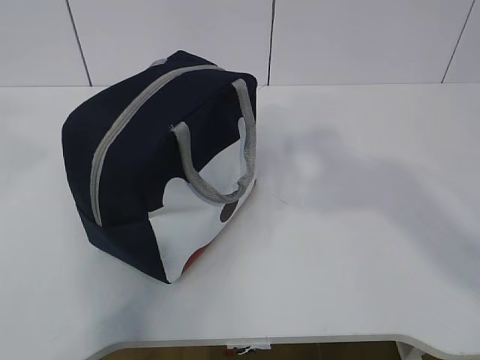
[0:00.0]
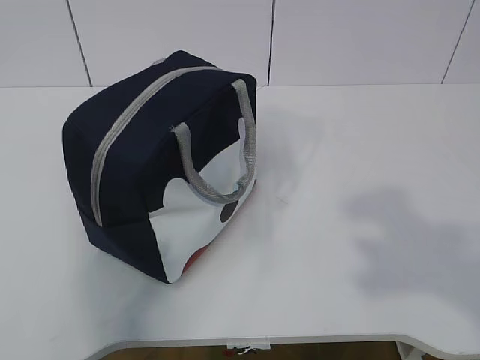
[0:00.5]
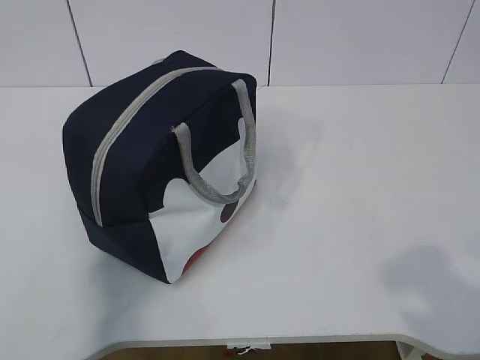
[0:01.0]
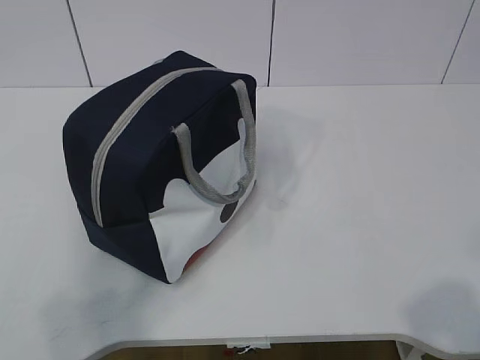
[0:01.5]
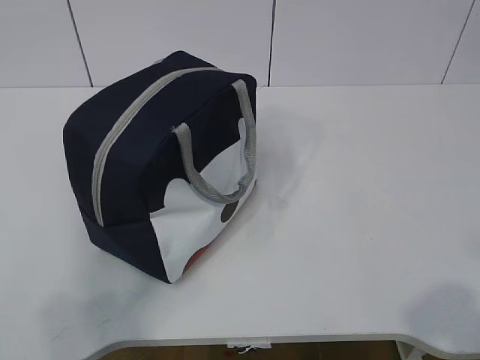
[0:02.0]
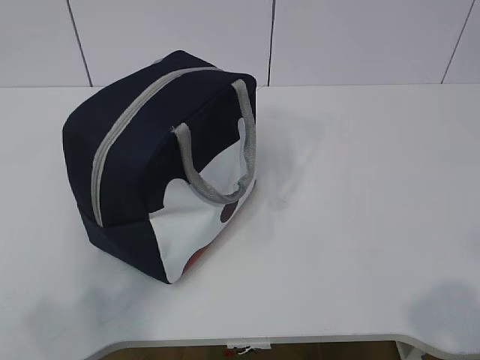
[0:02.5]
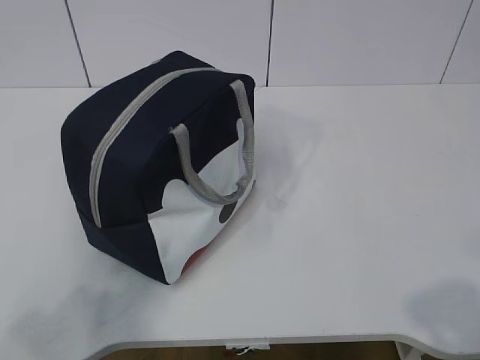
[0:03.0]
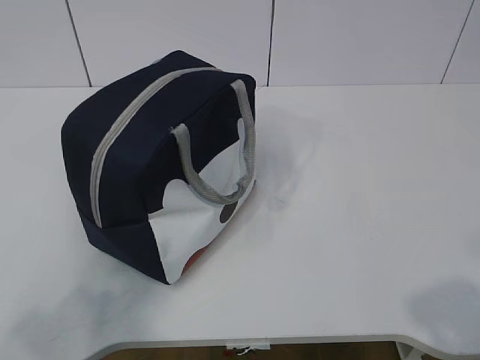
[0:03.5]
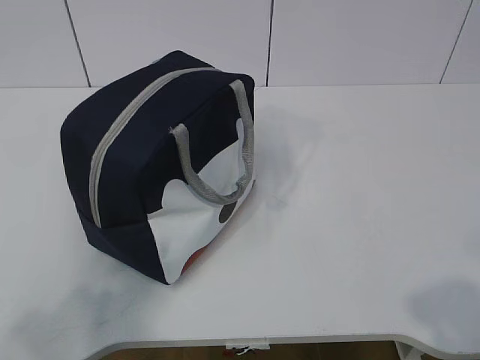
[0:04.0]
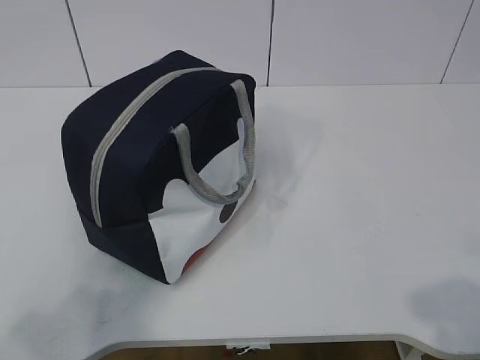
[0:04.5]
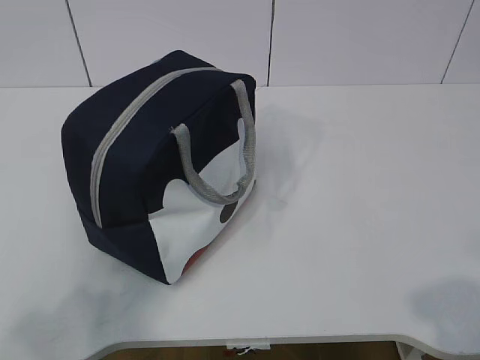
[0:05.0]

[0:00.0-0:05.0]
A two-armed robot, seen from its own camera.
0:00.0 to 0:02.5: The right gripper shifts roughly 20 cm downward and backward; the left gripper heads downward, backward and to the left, covering roughly 25 cm.

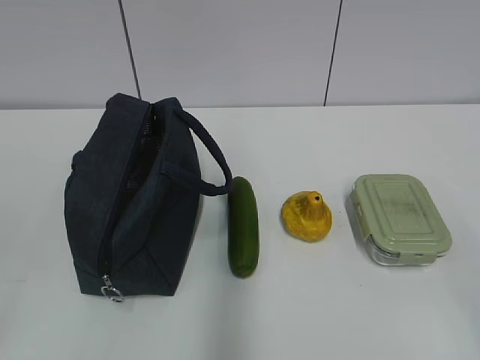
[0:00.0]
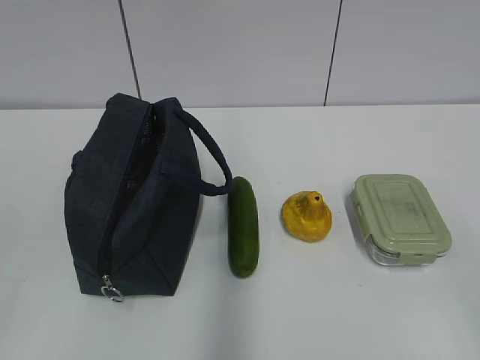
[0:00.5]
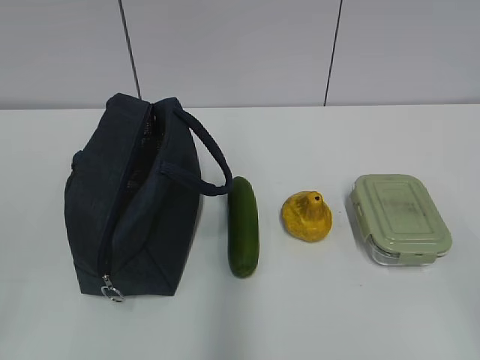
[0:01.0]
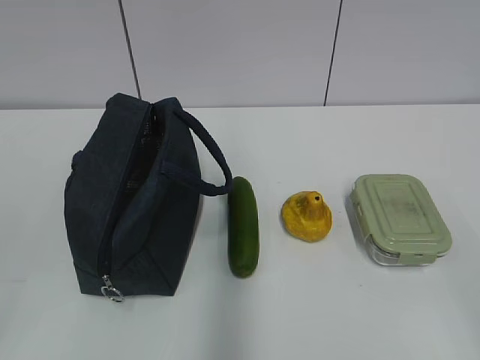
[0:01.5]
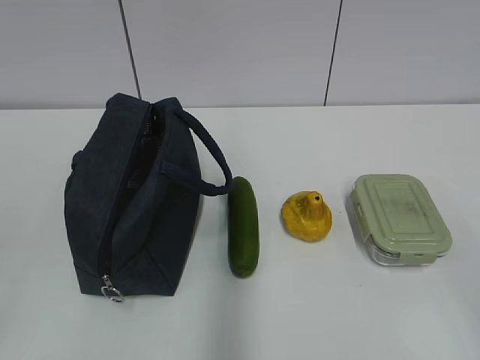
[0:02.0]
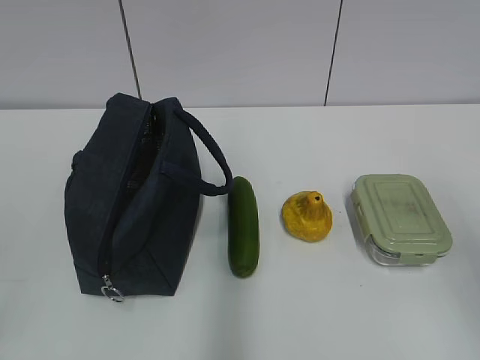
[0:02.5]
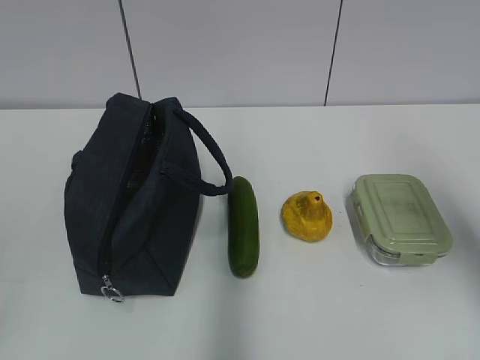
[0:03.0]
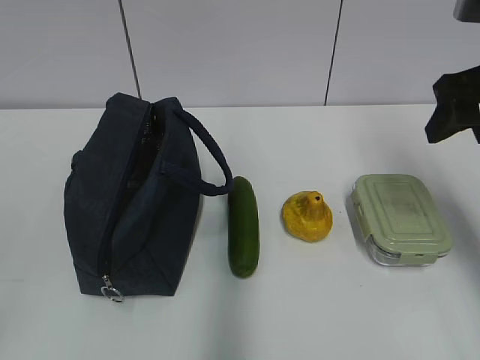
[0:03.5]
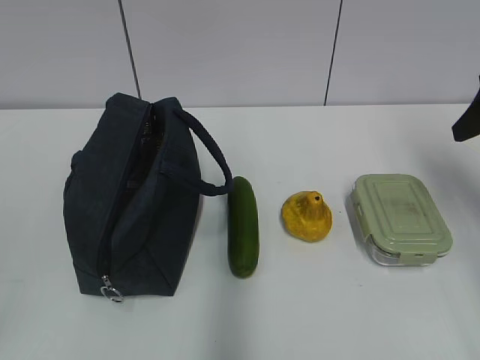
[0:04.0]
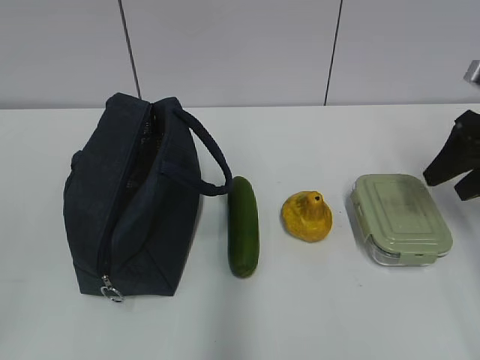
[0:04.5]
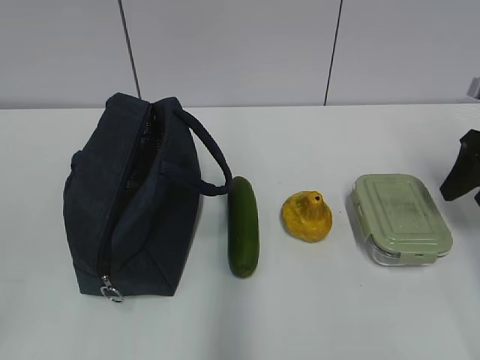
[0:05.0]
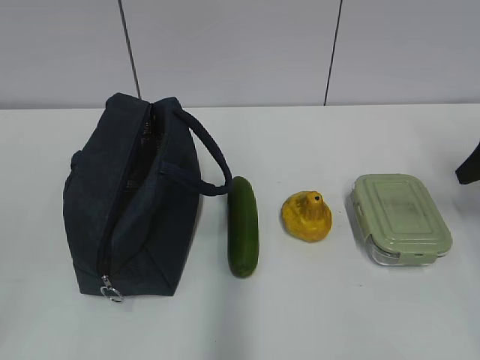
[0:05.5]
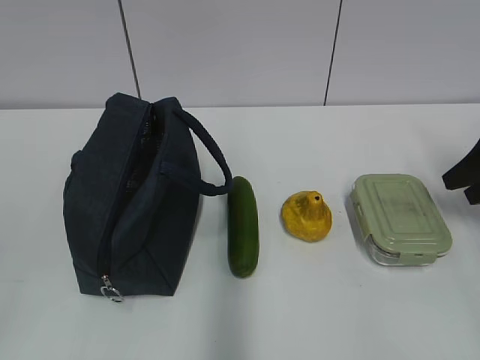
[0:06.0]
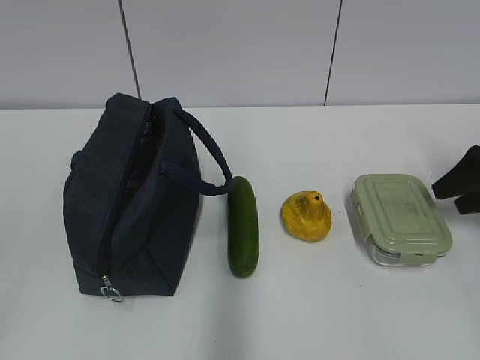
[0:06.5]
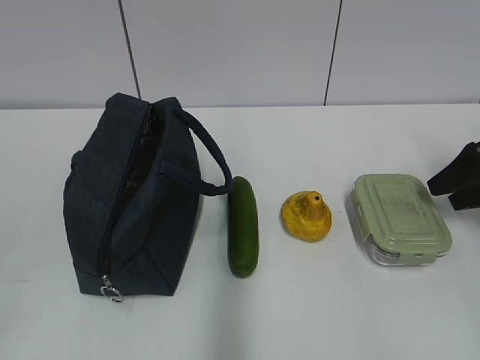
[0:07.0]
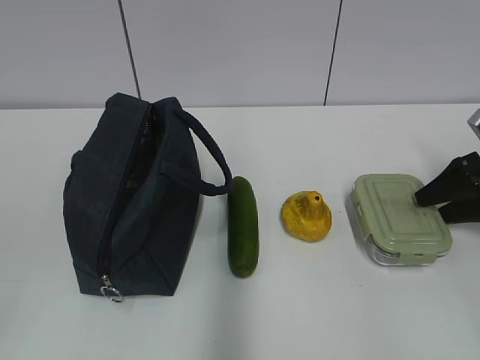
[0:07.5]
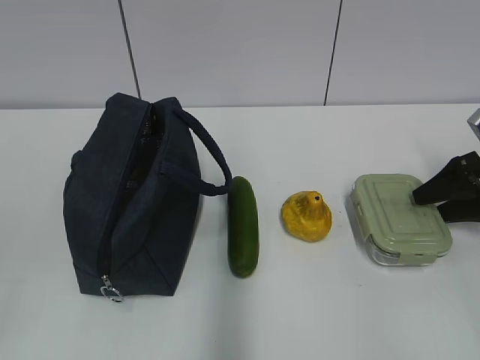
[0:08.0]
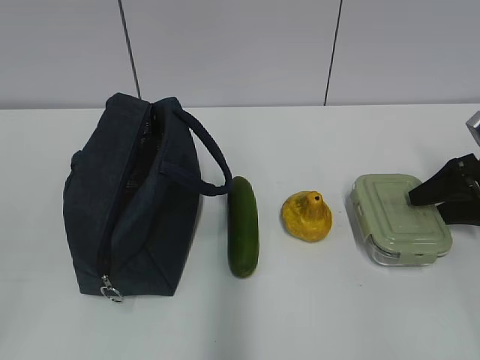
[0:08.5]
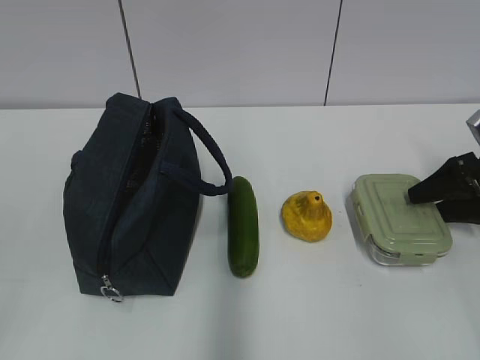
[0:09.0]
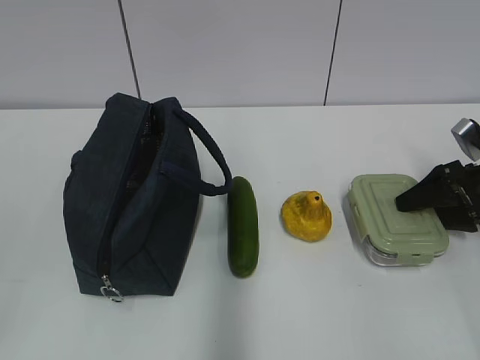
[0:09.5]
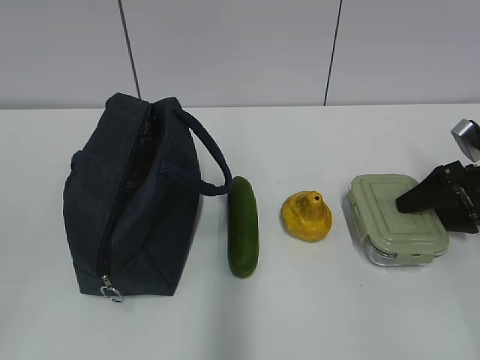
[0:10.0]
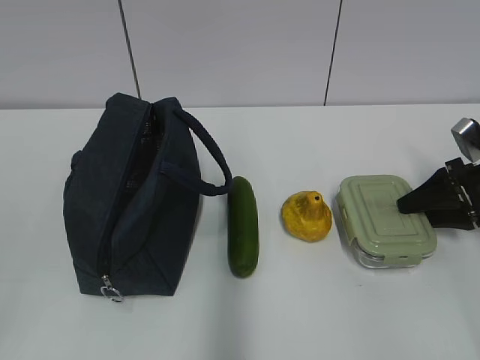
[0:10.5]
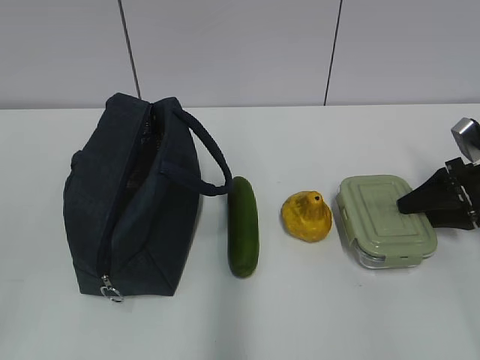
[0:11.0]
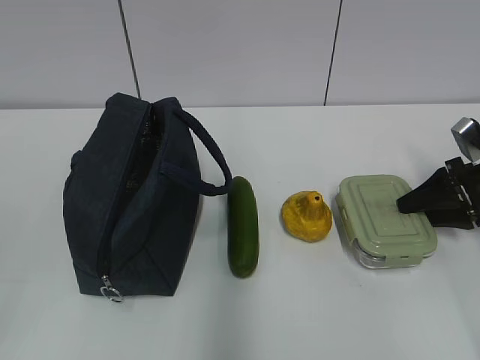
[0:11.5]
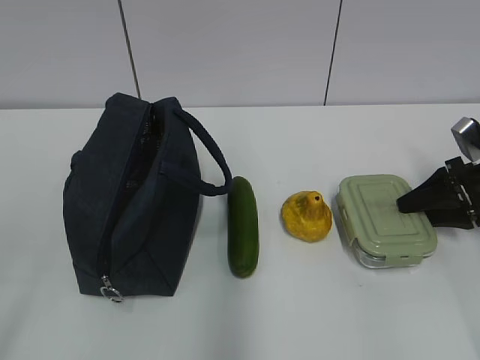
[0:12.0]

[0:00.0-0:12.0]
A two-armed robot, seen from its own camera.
Step, 0:00.0 to 0:12.0: Grab the lunch box with your right hand.
0:02.0 to 0:04.0: The right gripper shifts approximately 35 cm forward.
0:04.0 to 0:06.0: The right gripper shifts some 10 cm downward and to the right.
0:06.0 to 0:08.0: The right gripper moves downward, about 5 cm.
0:08.0 to 0:12.0: The grippers stay close to where they were, moving slightly.

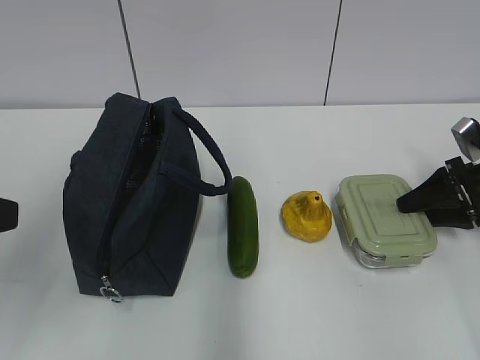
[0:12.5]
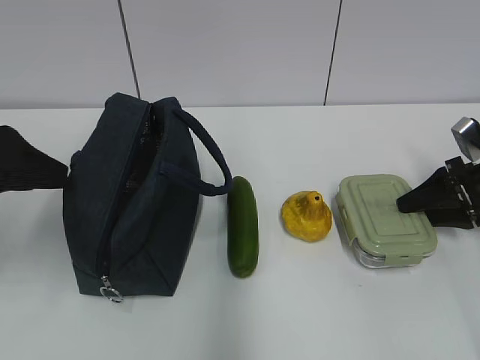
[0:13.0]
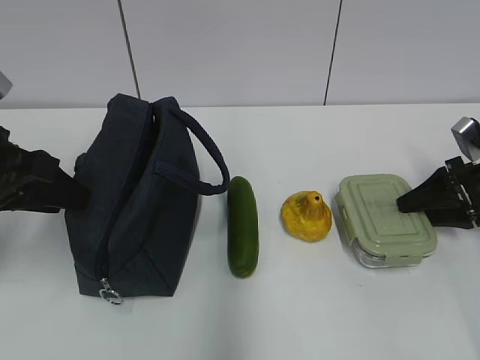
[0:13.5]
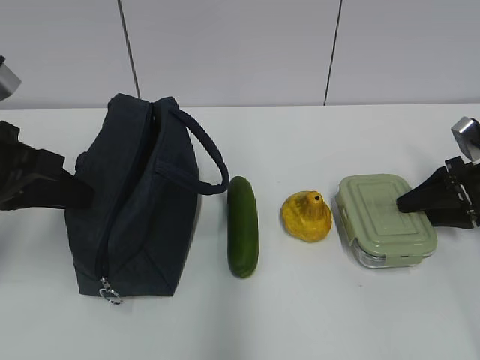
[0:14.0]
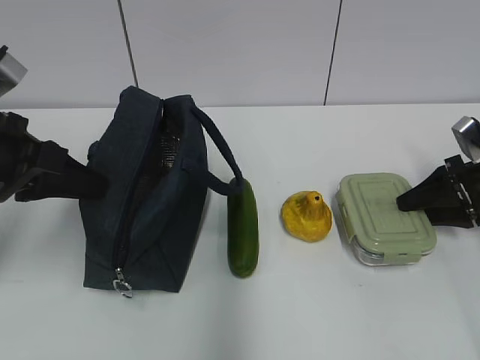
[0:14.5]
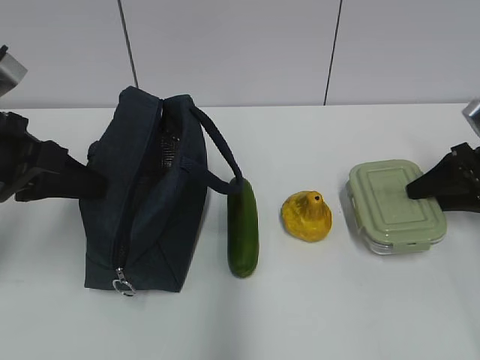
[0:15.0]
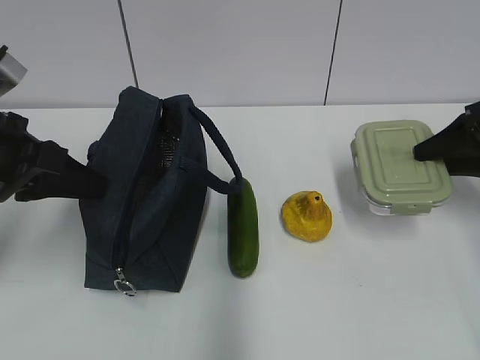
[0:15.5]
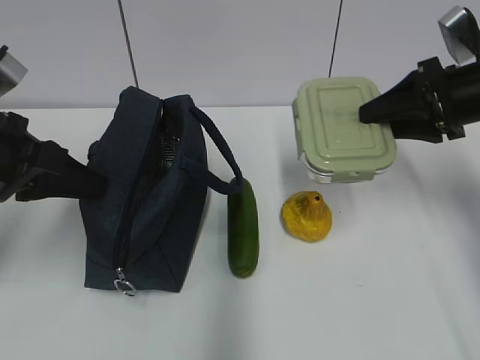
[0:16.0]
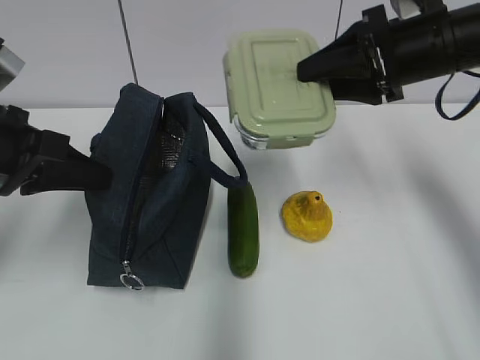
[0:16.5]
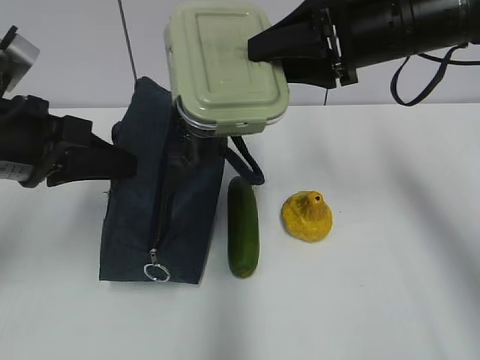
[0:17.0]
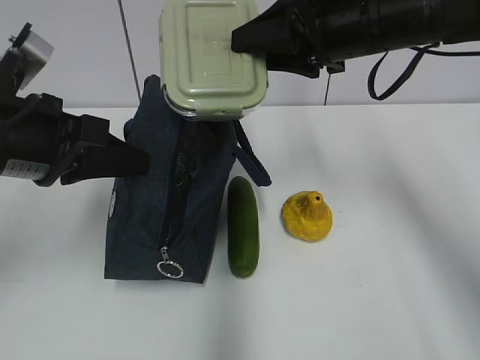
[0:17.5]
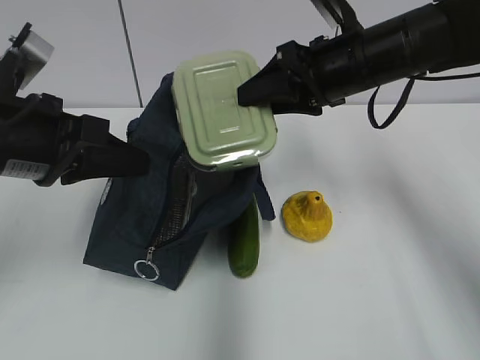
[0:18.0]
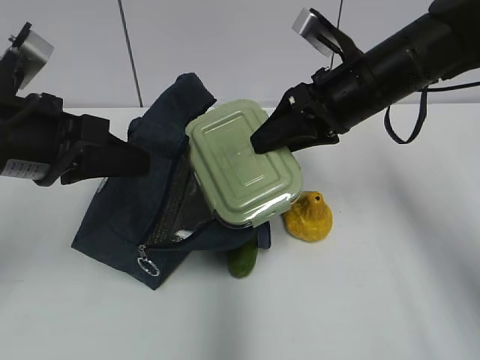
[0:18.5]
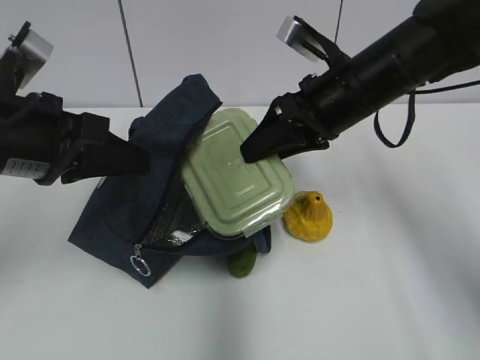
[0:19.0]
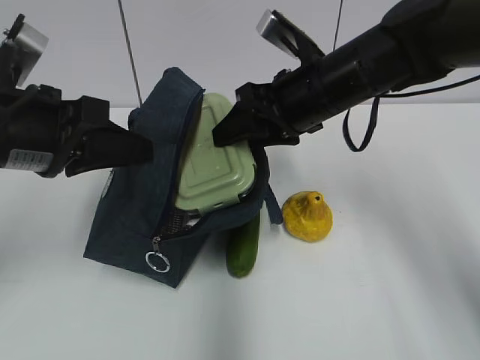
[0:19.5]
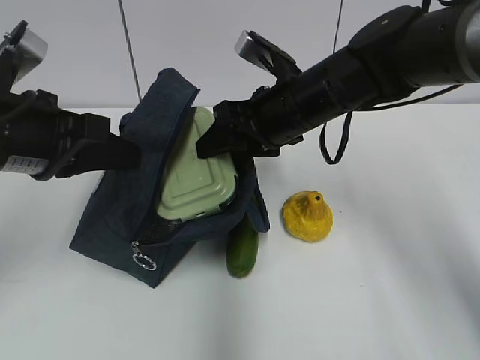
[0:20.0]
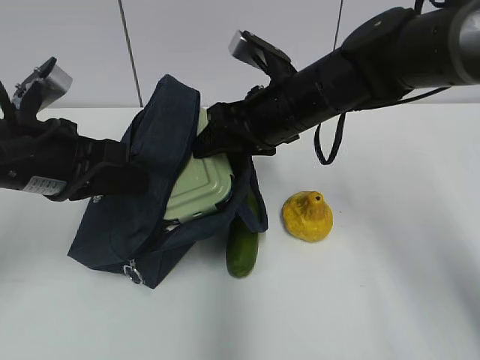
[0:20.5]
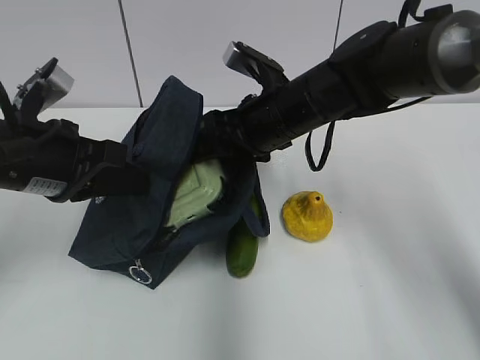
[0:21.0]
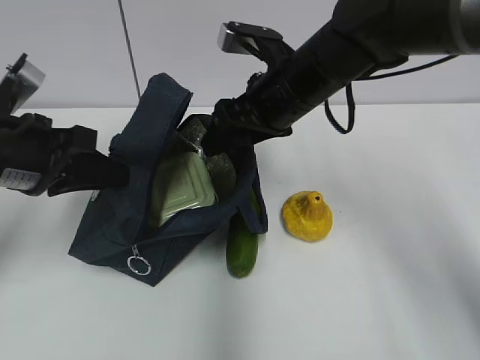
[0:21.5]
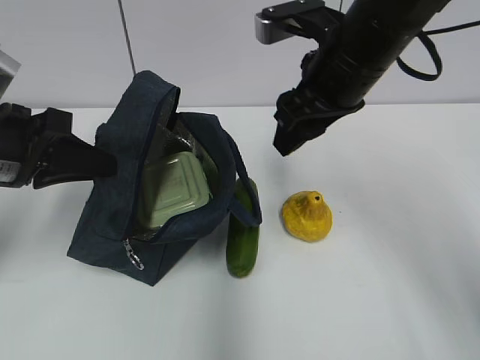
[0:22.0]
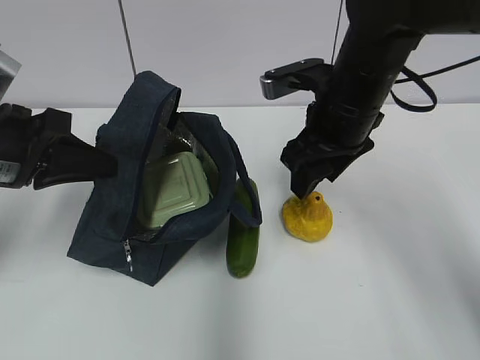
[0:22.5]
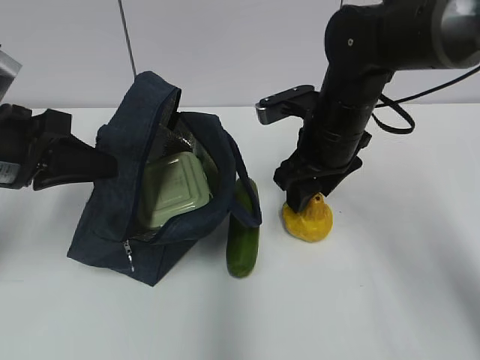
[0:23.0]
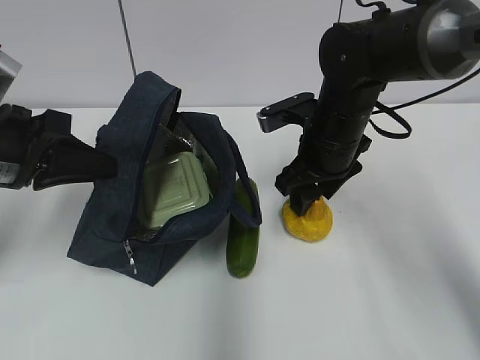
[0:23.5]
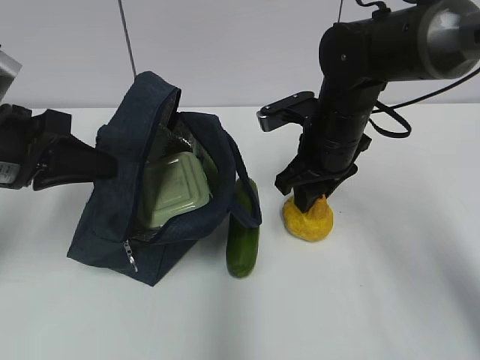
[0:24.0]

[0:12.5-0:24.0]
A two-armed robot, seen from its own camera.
Step, 0:12.5 to 0:18.0: Grab the lunch bag with your left hand.
Step, 0:18.5 to 0:21.5: Place it into the bag with your right hand.
Step, 0:22.0 to 0:24.0: Grab the pear with your right hand.
0:12.5 to 0:14.5: The left gripper moves forward, roughly 10 cm, and closes up.
0:14.5 to 0:16.5: The right gripper is displaced upward and to the left by approximately 25 cm.
0:16.5 to 0:18.5: The right gripper moves to the left, some 5 cm.
0:18.5 to 0:20.0: The right gripper shifts approximately 5 cm to the left.
0:20.0 to 0:22.0: The right gripper goes about 5 cm upward.
0:22.0 to 0:24.0: The right gripper shifts approximately 10 cm downward.
